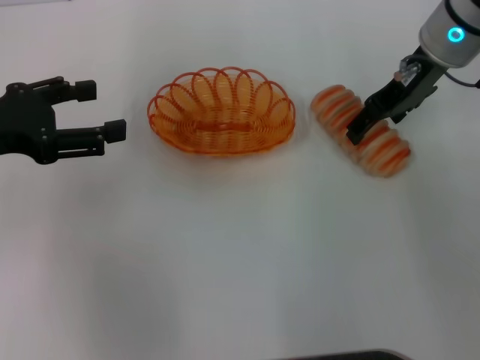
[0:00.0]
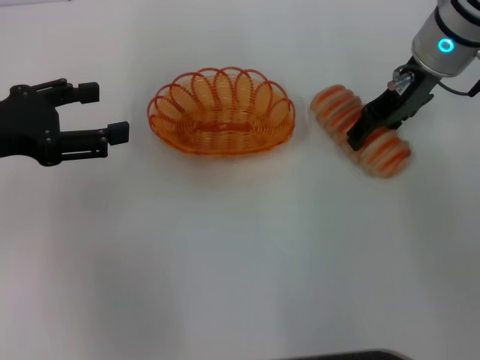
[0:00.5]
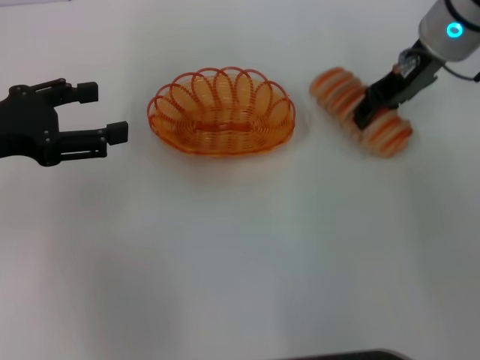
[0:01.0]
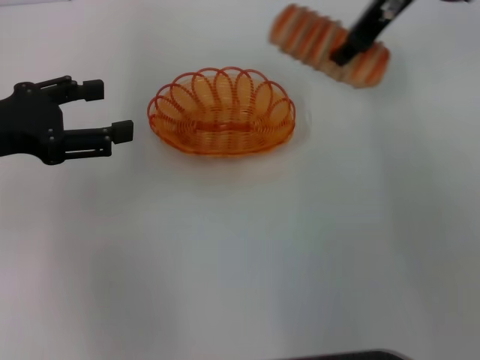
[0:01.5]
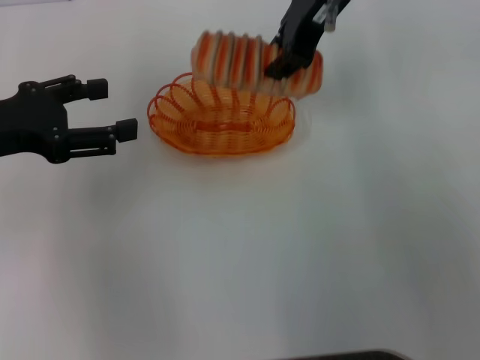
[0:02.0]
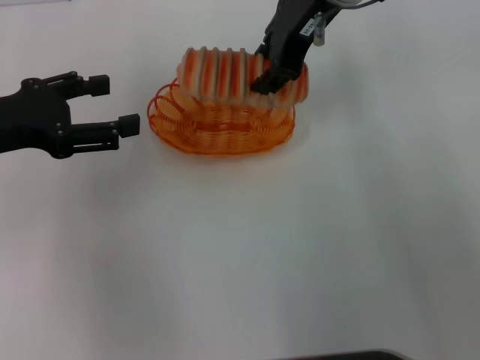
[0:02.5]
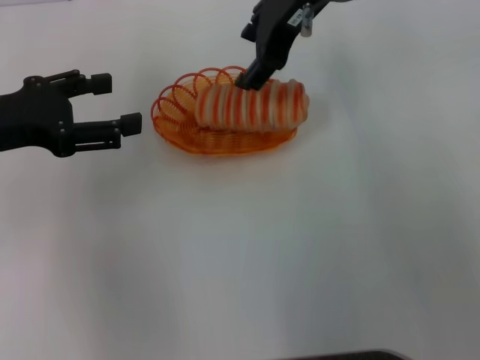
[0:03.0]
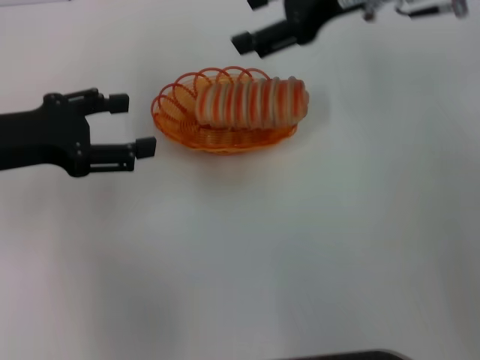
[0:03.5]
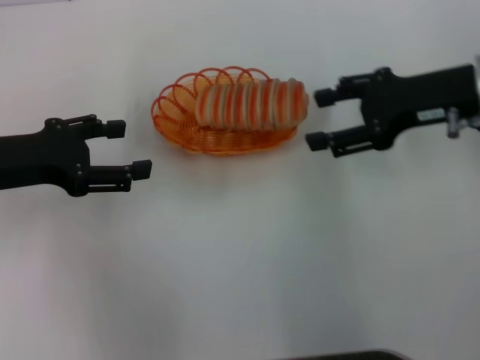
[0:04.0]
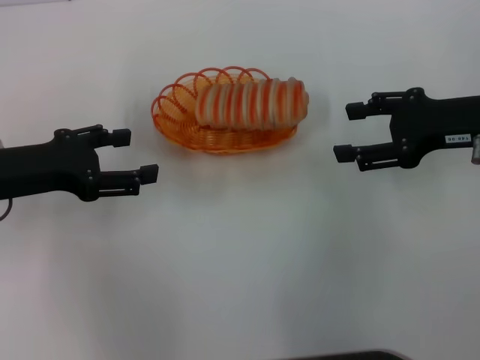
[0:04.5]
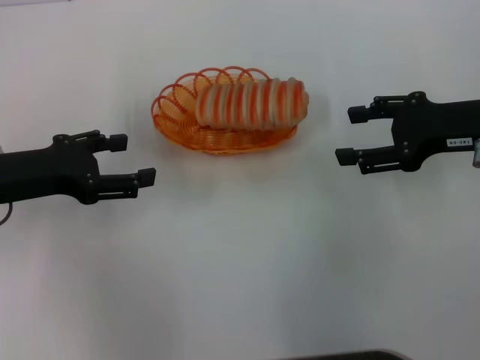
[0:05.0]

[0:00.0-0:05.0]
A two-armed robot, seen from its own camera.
Step, 0:01.5 to 0:03.0: Place the long bread into the basket with the right gripper.
0:00.0 to 0:02.5: The right gripper shifts about 15 cm to the left and upward, and closes.
0:02.5 to 0:05.0: The right gripper is displaced to the right, backward and downward by approximately 25 cm, and opens its fingers, while the left gripper travels downward by roughly 5 cm.

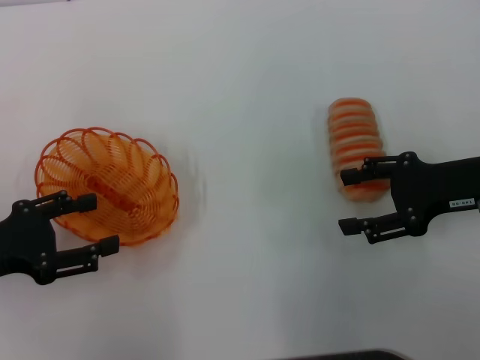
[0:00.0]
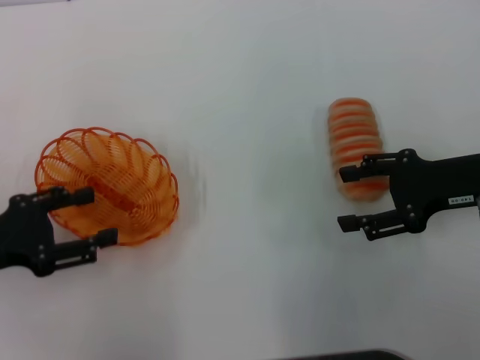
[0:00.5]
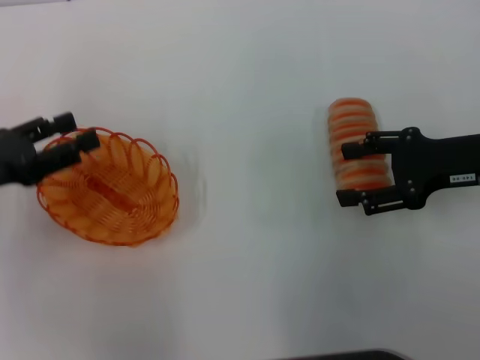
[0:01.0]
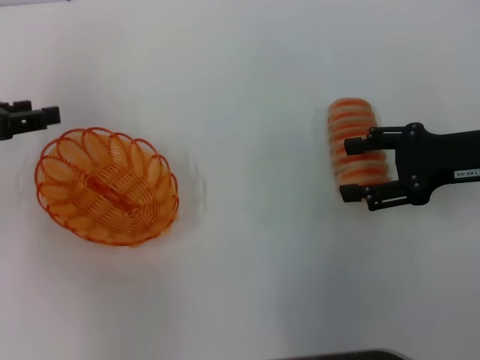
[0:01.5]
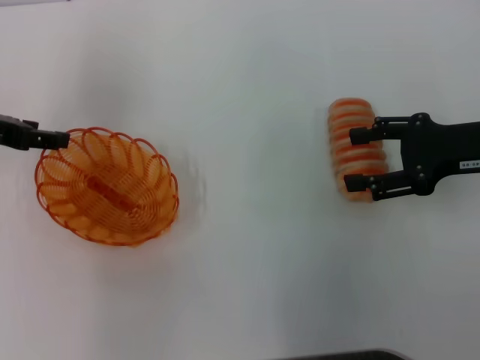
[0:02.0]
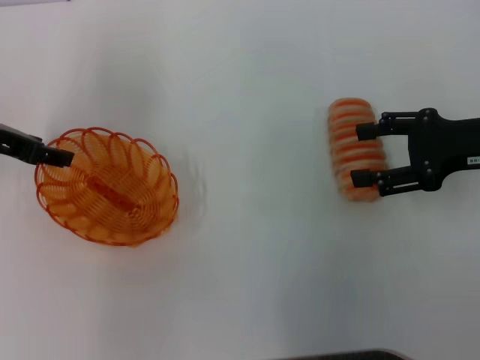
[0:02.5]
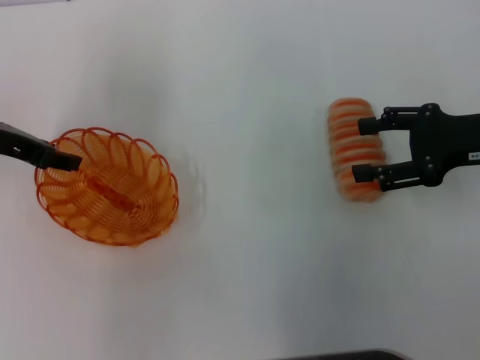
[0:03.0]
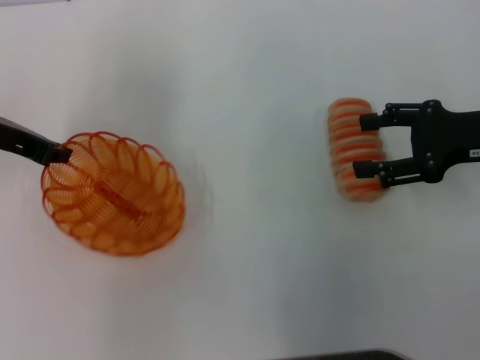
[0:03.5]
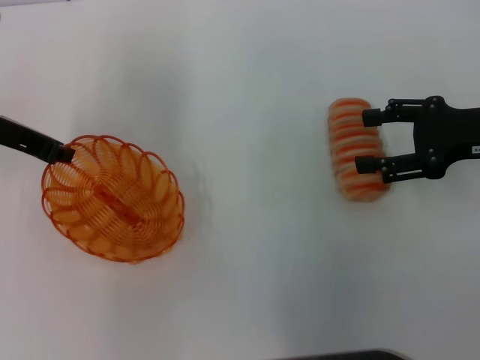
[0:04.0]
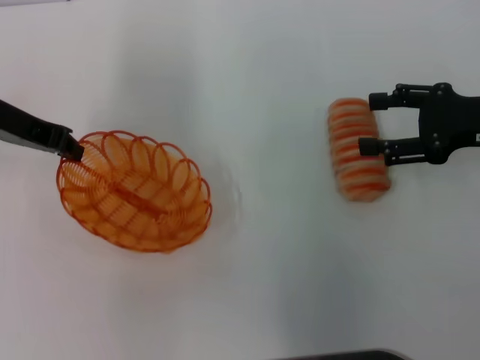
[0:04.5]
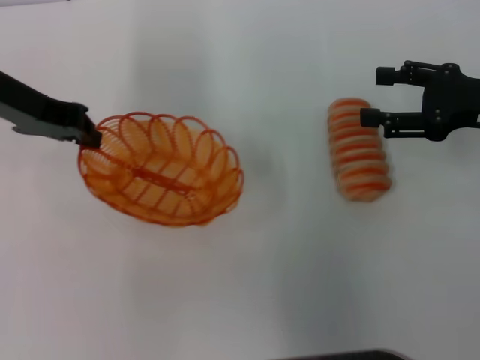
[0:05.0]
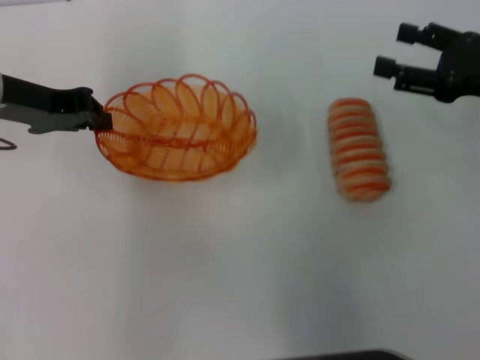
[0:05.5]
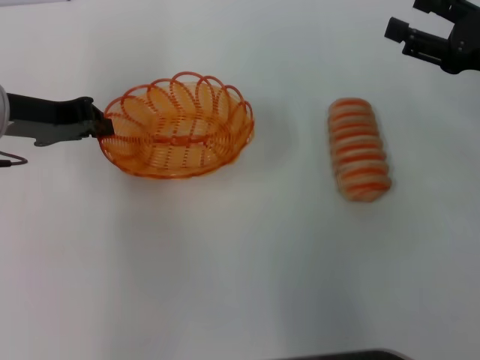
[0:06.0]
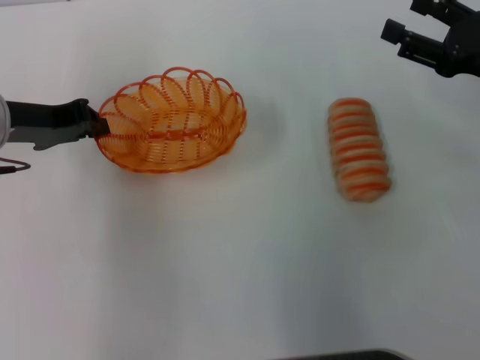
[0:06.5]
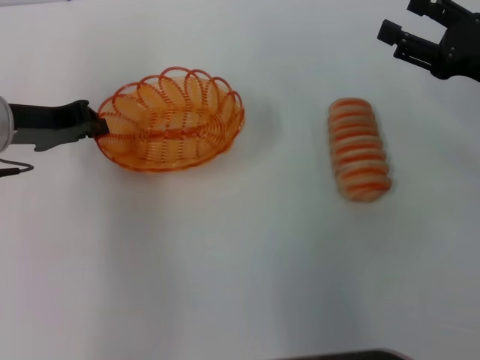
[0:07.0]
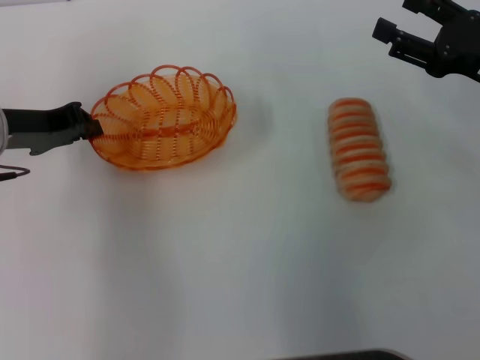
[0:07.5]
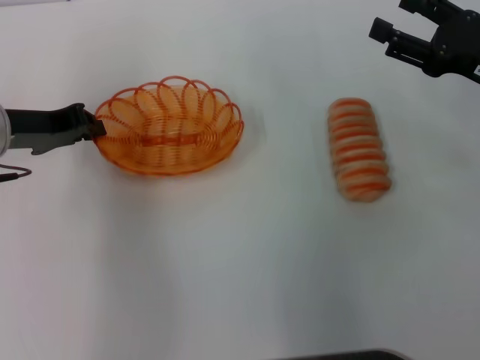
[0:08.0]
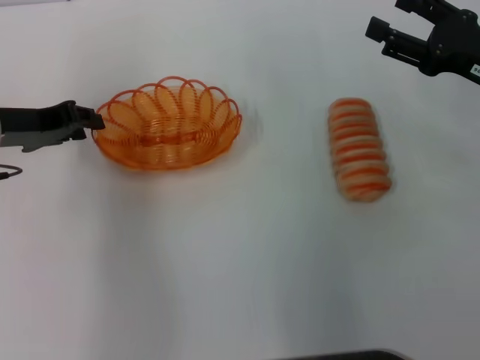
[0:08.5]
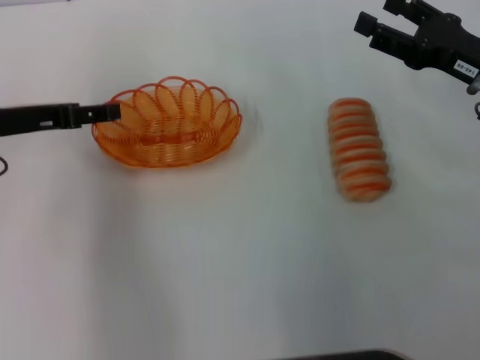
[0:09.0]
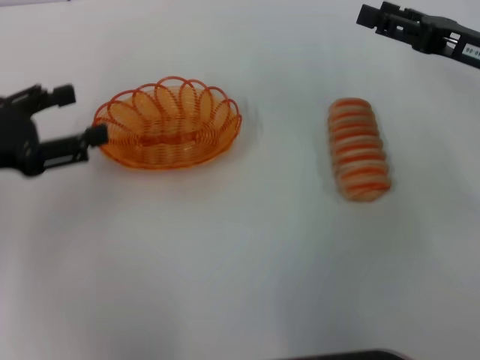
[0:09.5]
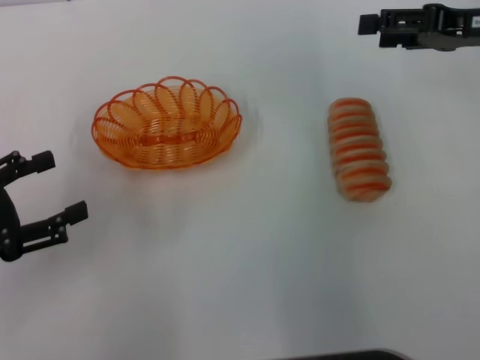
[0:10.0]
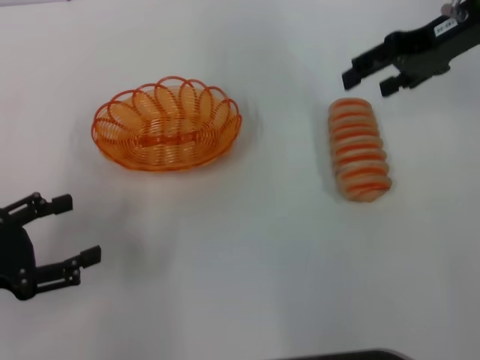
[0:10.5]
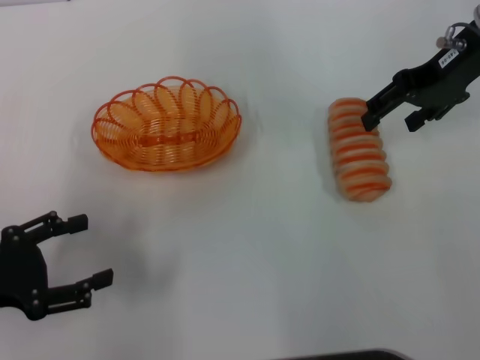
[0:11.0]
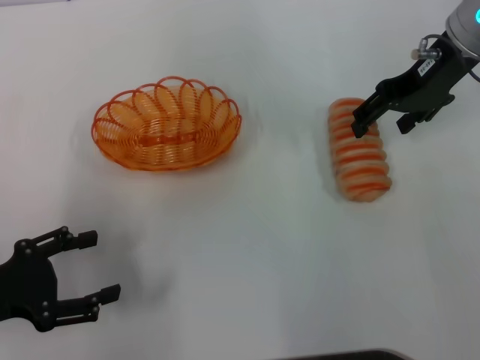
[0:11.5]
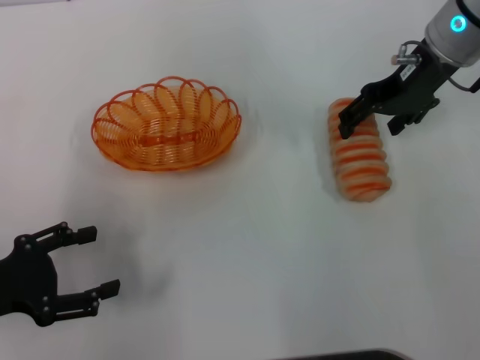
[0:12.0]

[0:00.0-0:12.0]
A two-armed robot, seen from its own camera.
Step, 0:00.0 to 0:04.5: Pick up the basket with the left gripper.
Step, 0:05.0 to 0:09.0: Place the basket in the center of view with the left gripper.
0:00.0 to 0:02.0: The left gripper goes some 15 cm forward and upward.
0:02.0 to 0:04.0: The left gripper closes.
0:06.0 to 0:08.0: The grippers stay close to where they were, moving slightly.
0:08.0 to 0:10.0: The right gripper travels upward and forward by about 10 cm, while the left gripper shifts about 15 cm backward and to the left, and opens its fingers.
0:10.0 to 0:12.0: The right gripper heads to the left, covering approximately 10 cm.

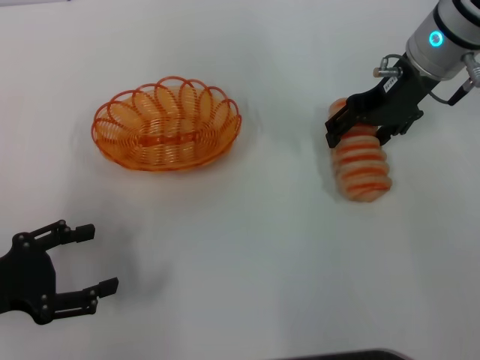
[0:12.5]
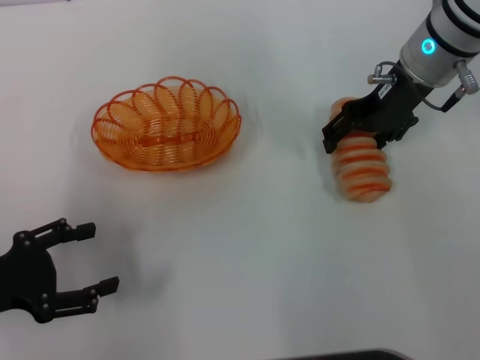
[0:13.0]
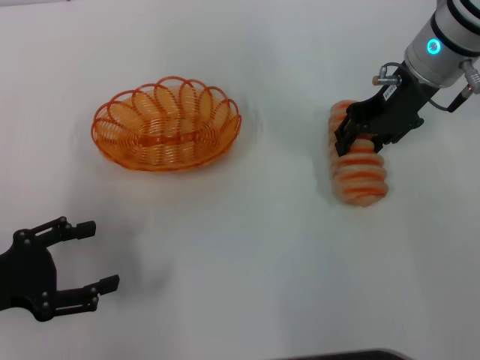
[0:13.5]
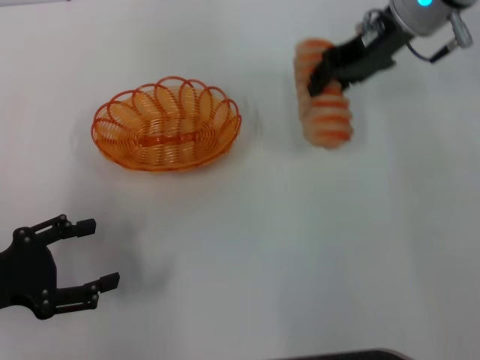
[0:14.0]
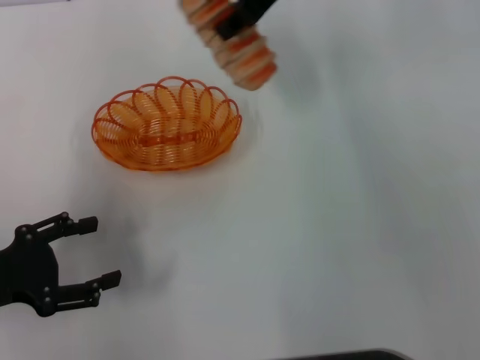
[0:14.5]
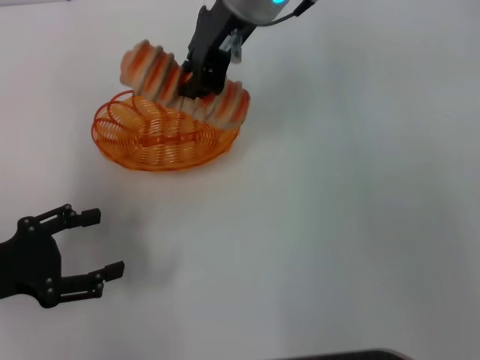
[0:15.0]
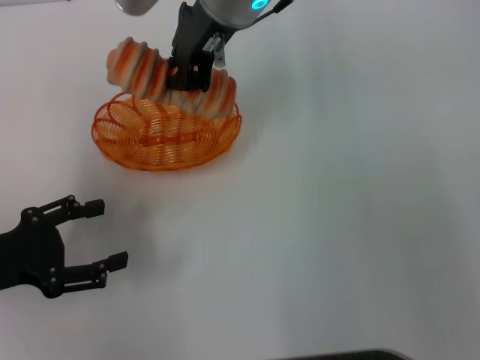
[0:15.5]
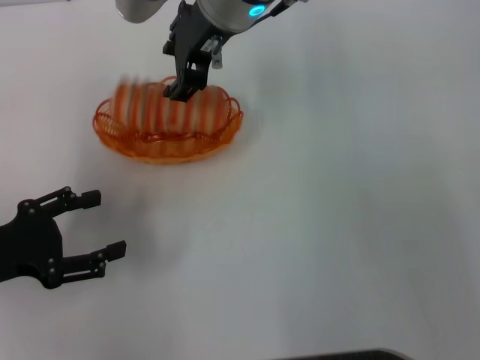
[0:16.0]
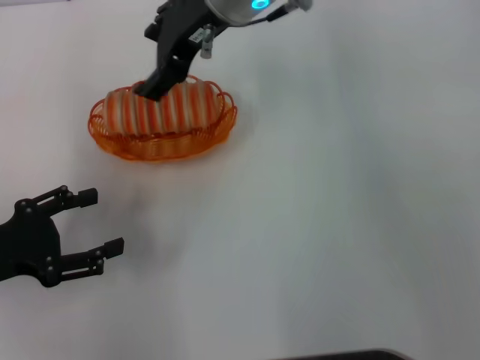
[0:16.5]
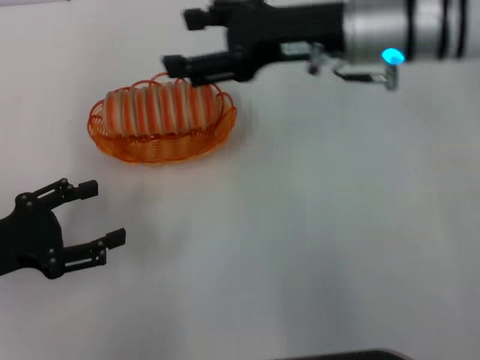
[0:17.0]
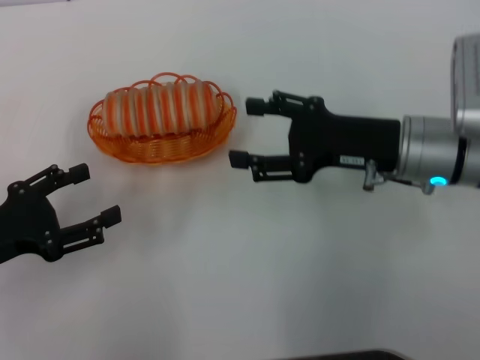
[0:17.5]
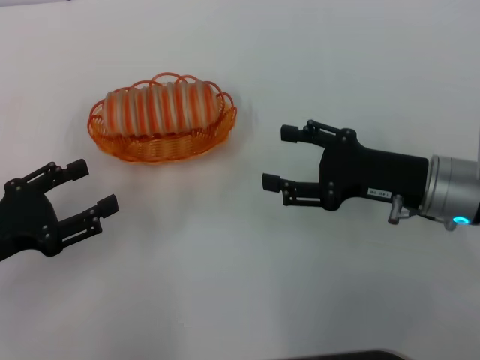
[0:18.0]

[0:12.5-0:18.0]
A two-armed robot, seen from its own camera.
Step, 0:14.0 to 0:16.5: Place the long bread into the basket with the right gripper.
0:12.5 to 0:14.5: The right gripper moves to the left and upward, roughly 15 cm, and closes.
0:14.5 to 0:16.0: The right gripper shifts roughly 10 cm to the left.
0:16.0 to 0:18.0: The right gripper shifts about 30 cm to the right, downward and backward, and opens.
